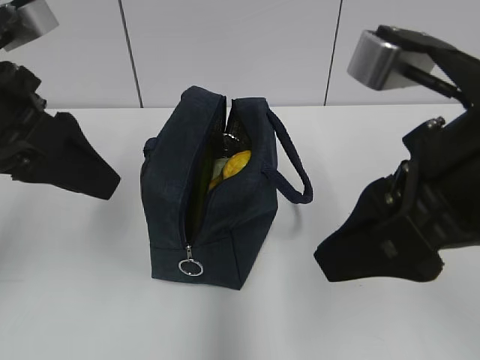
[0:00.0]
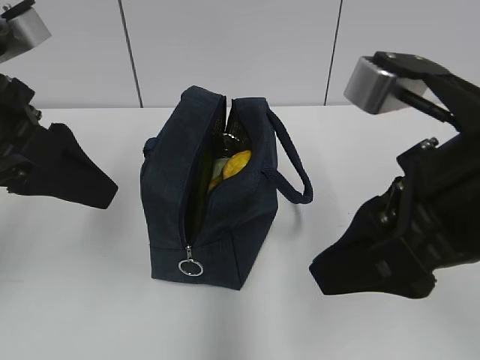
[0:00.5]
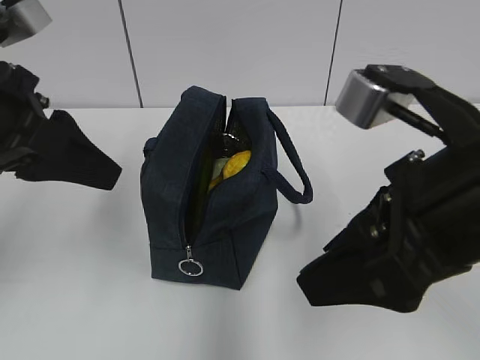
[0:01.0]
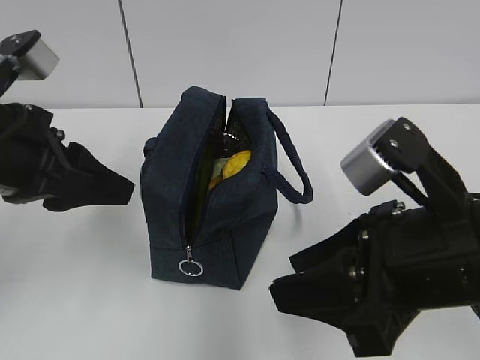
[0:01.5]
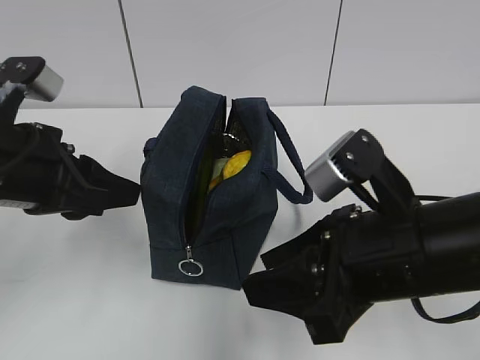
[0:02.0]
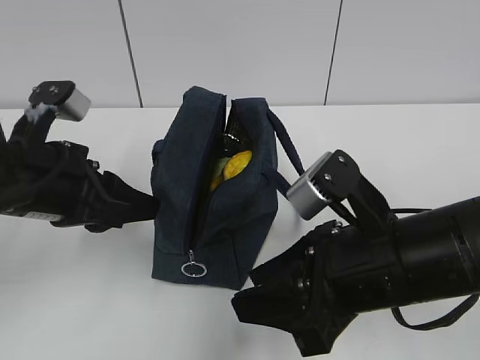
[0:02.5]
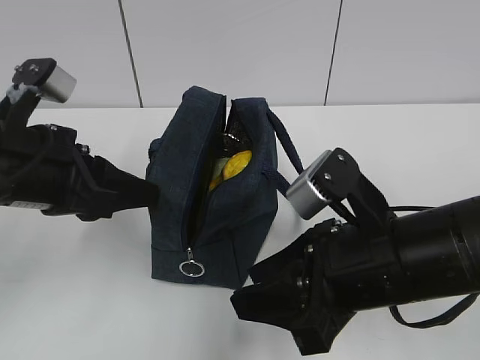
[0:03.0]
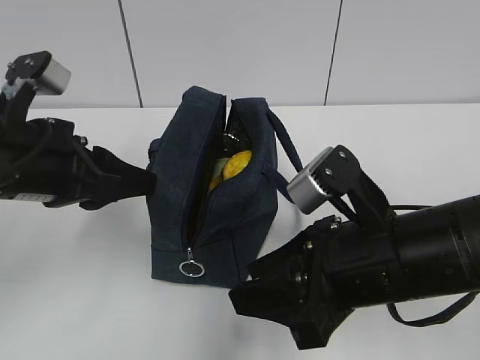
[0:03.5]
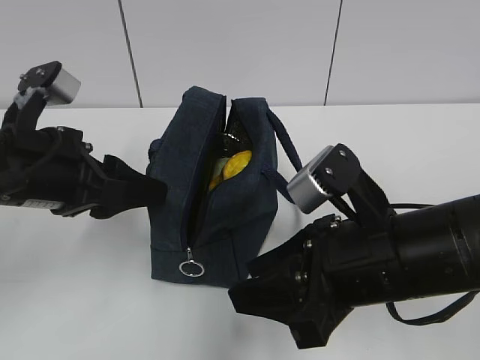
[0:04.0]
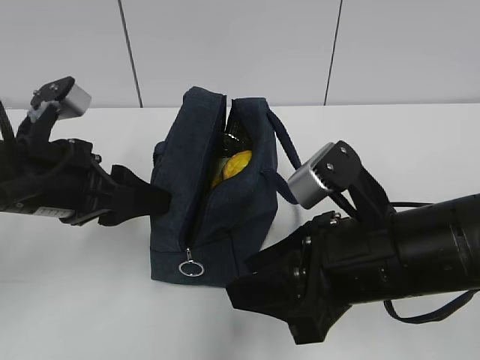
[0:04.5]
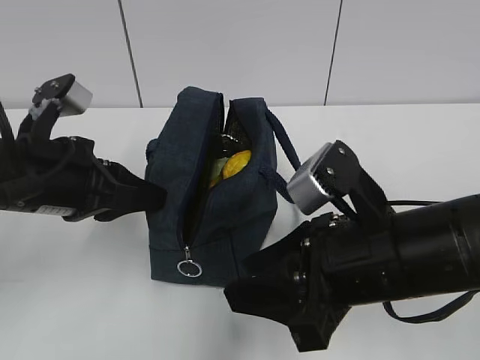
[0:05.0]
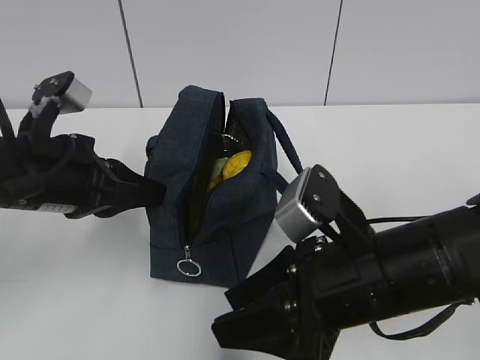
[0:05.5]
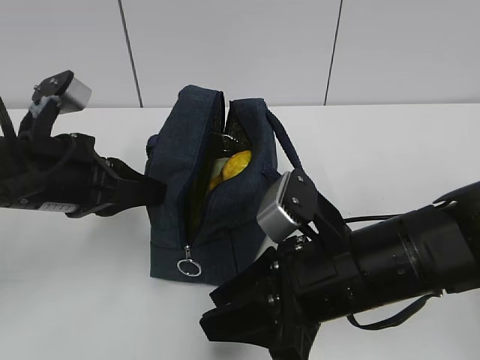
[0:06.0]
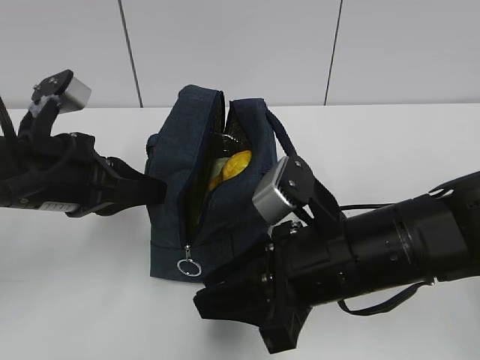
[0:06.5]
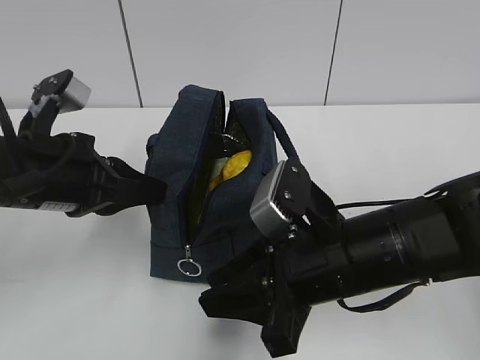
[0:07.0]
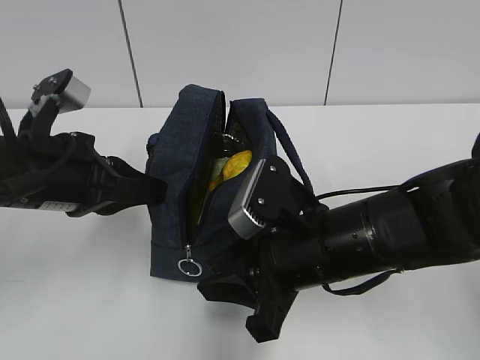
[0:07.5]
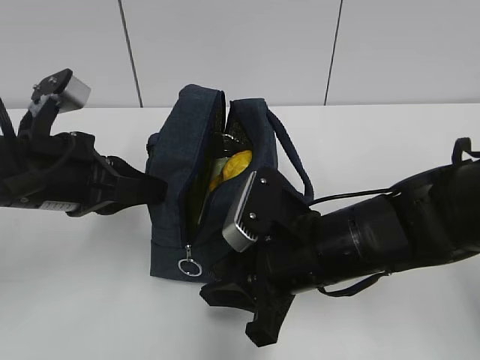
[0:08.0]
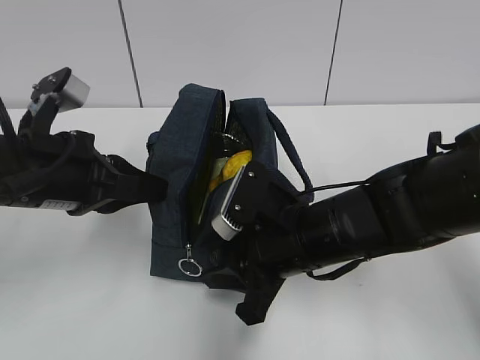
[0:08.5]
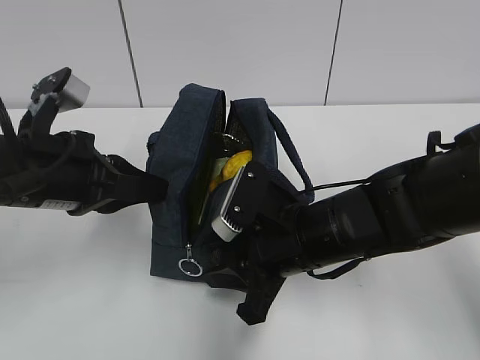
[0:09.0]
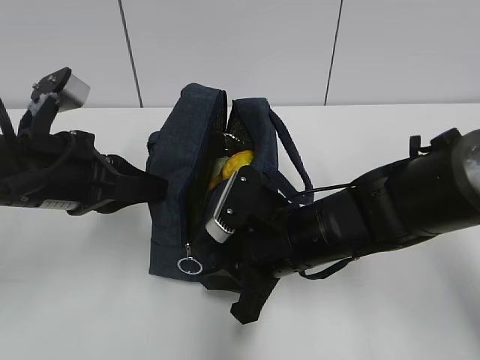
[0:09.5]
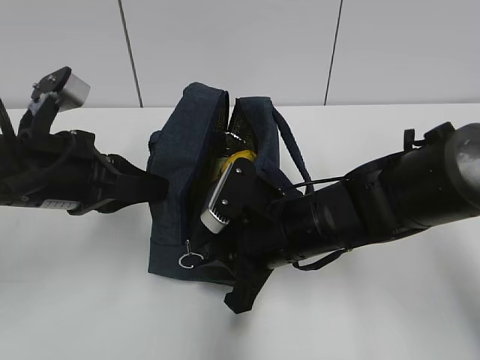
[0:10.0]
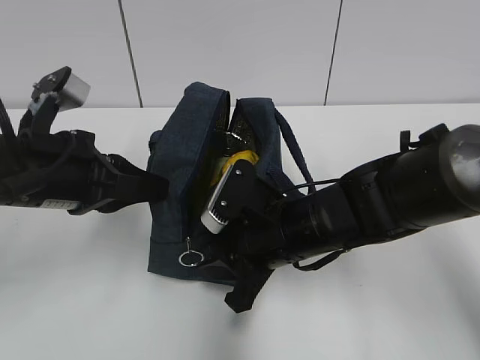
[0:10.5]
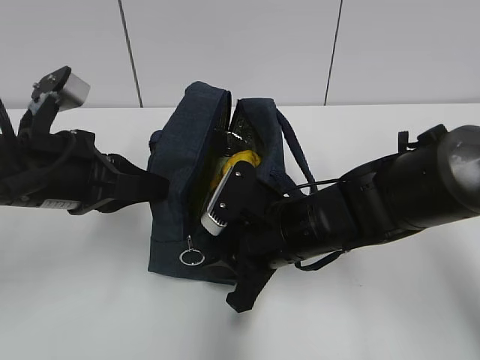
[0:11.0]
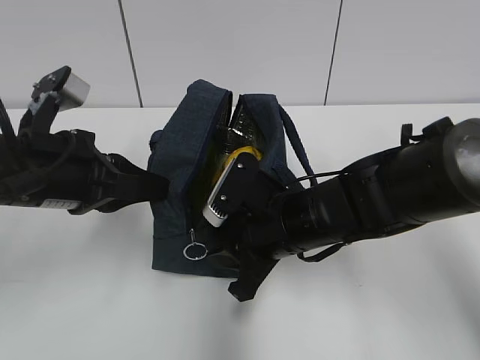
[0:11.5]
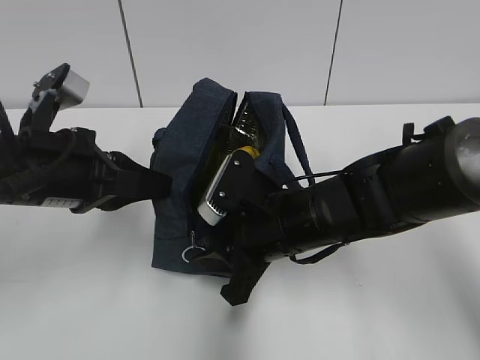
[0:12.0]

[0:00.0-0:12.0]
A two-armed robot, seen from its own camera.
0:00.0 to 0:02.0: The two grippers go about 10 cm downward.
0:02.0 to 0:04.0: The grippers stay close to where they were, moving slightly.
0:04.0 to 0:06.0: The left gripper closes its fingers.
0:06.0 to 0:08.0: The grippers make only small movements.
0:08.0 to 0:12.0: The grippers make only small movements.

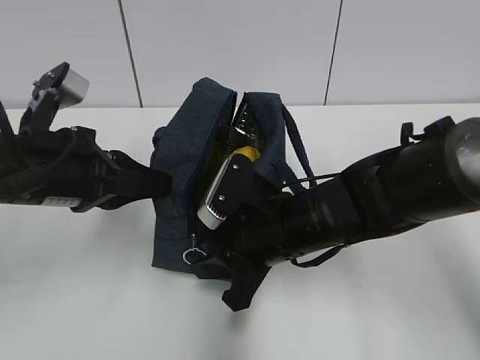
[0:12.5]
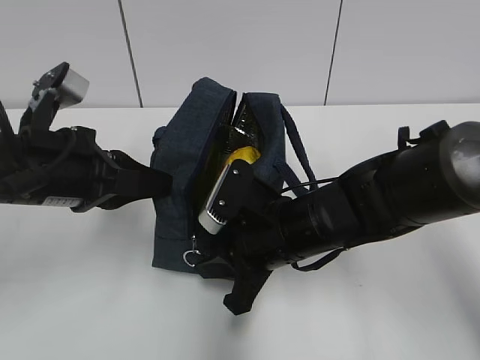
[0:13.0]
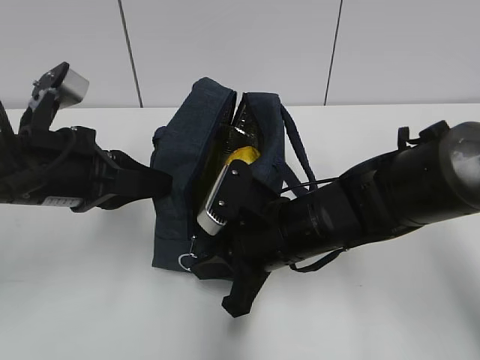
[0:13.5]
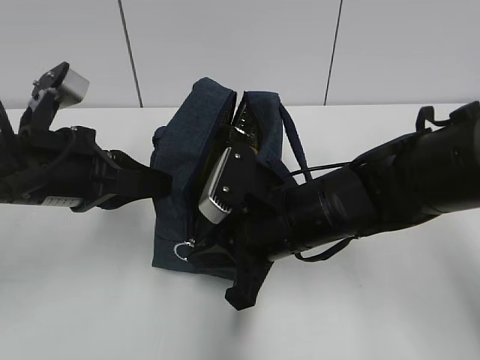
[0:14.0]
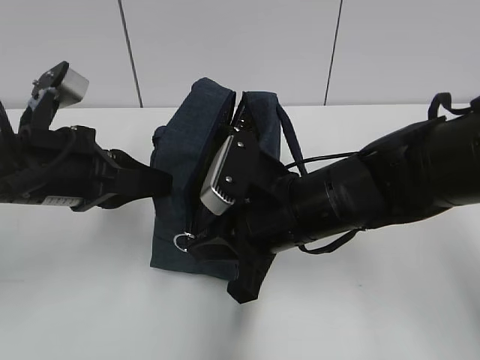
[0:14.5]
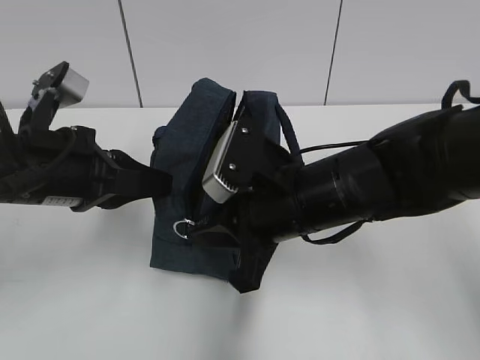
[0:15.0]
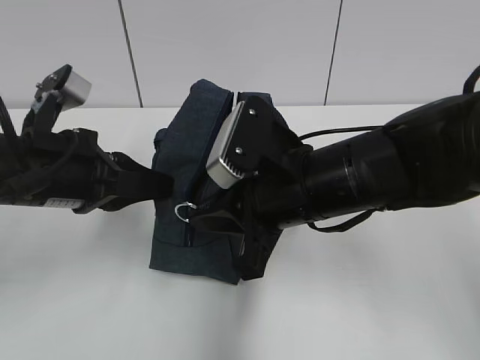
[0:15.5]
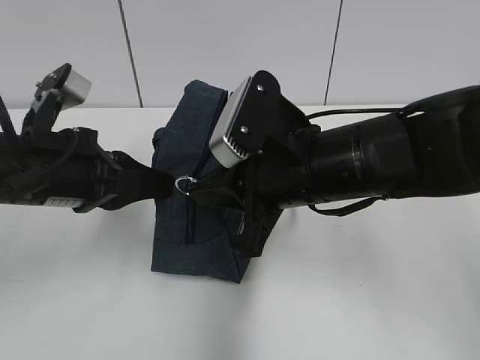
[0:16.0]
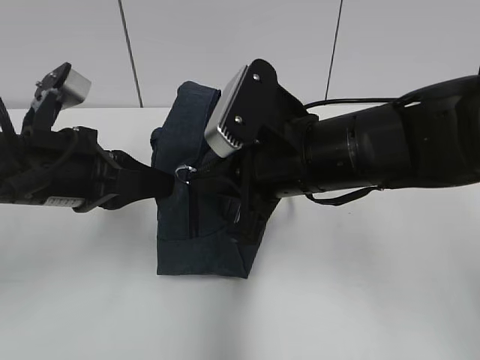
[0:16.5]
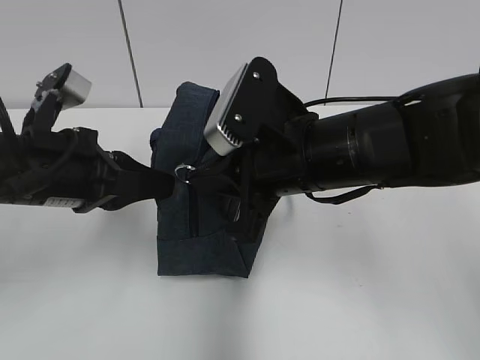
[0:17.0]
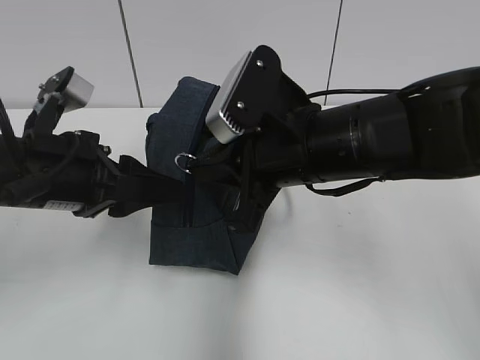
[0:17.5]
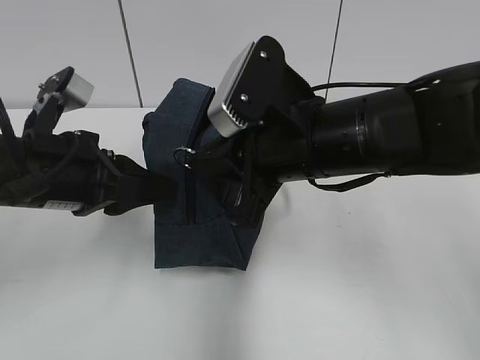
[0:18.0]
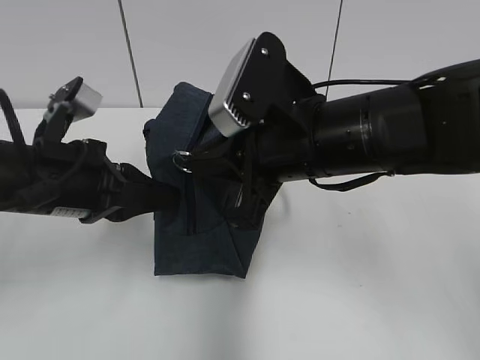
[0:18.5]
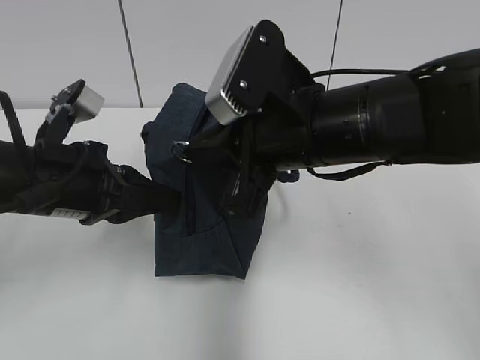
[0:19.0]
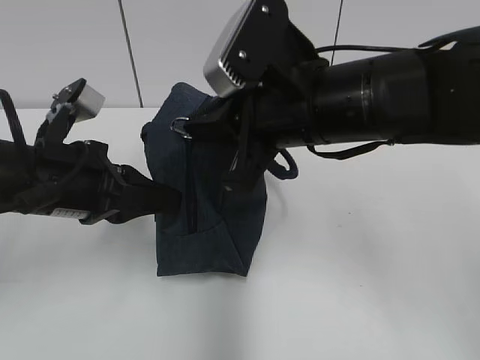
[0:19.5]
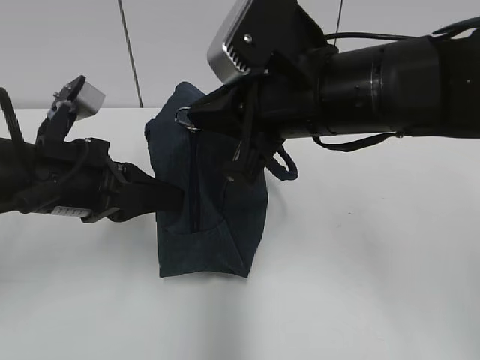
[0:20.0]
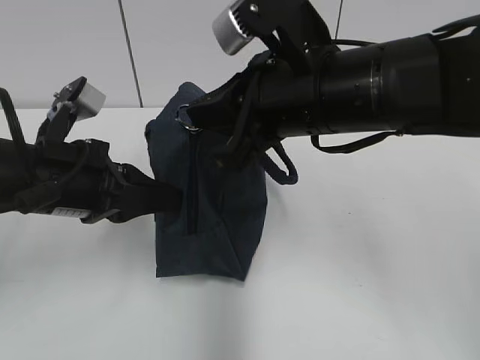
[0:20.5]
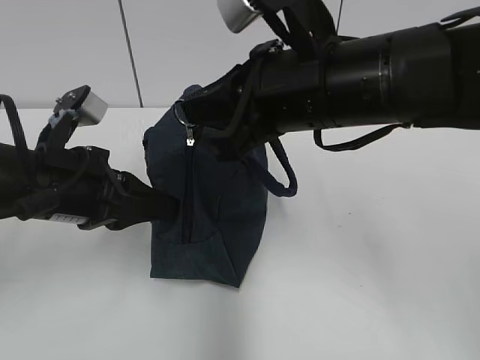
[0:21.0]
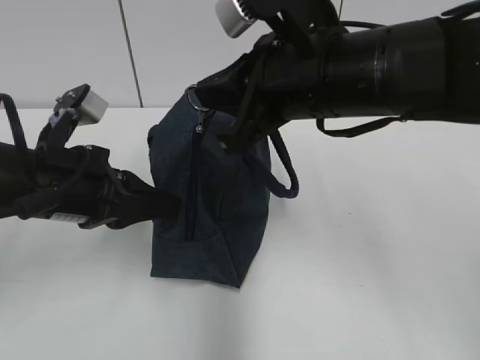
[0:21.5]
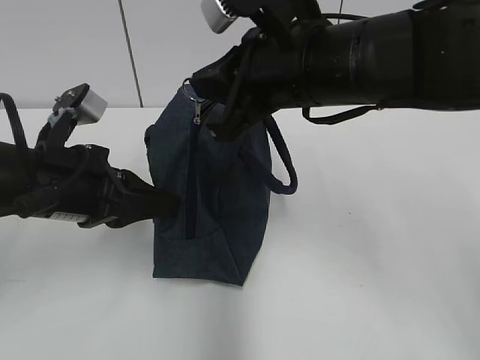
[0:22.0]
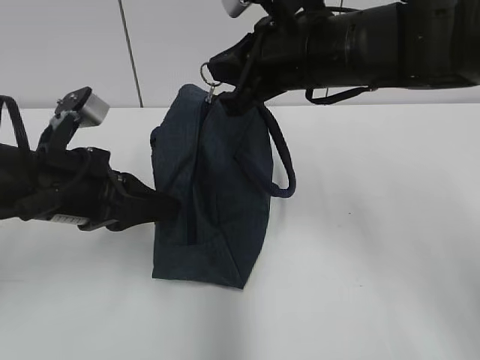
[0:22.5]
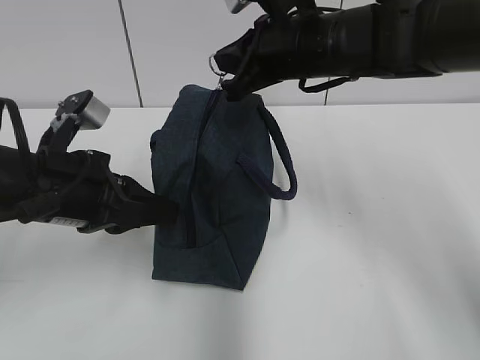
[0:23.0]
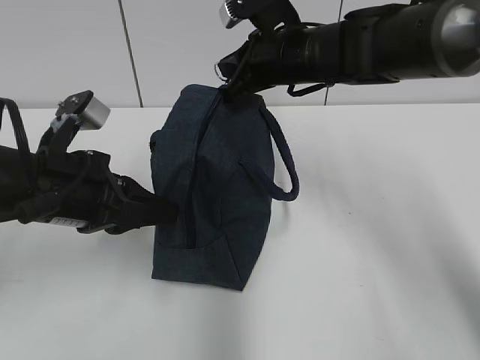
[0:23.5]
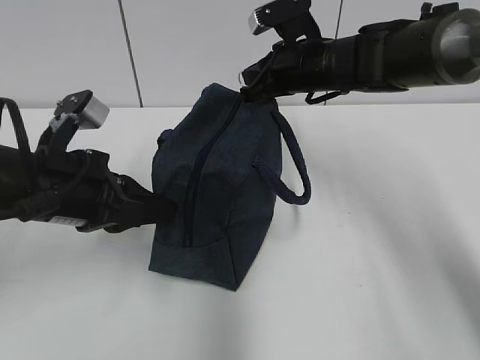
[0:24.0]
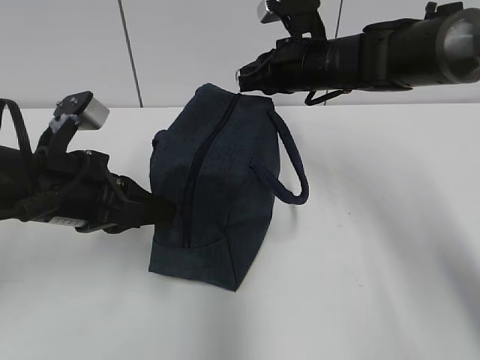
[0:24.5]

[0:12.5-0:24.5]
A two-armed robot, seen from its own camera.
0:12.5 to 0:14.5: The right gripper closes.
0:14.5 to 0:16.5: The right gripper goes about 5 cm upward.
0:16.5 to 0:18.5: The left gripper opens, then closes once more.
0:18.5 to 0:20.5: The grippers make only small movements.
0:20.5 to 0:22.5: The right gripper moves forward, about 5 cm.
0:22.5 to 0:24.5: The right gripper is displaced forward and downward by approximately 15 cm.

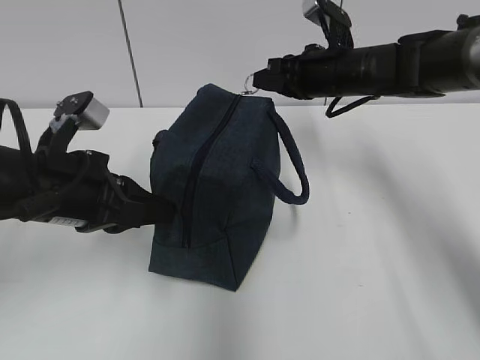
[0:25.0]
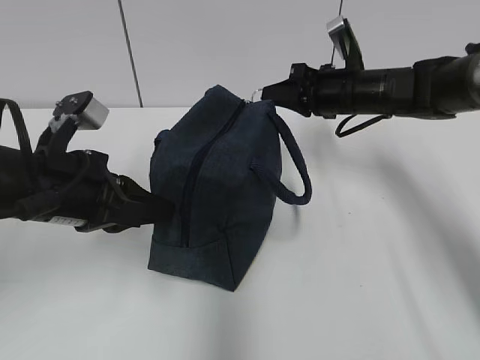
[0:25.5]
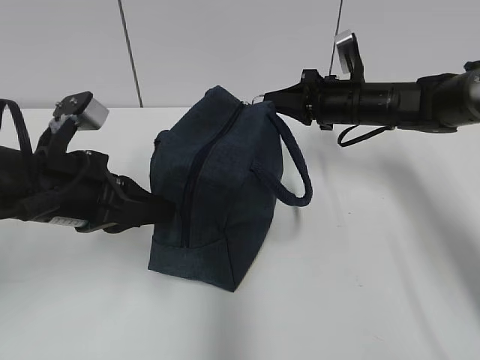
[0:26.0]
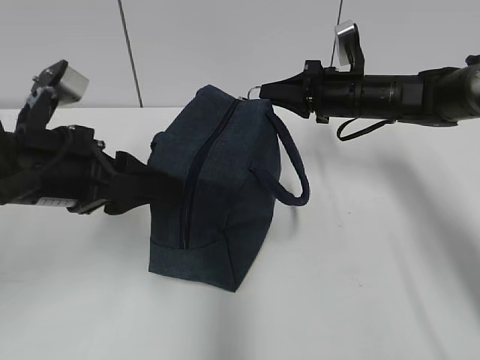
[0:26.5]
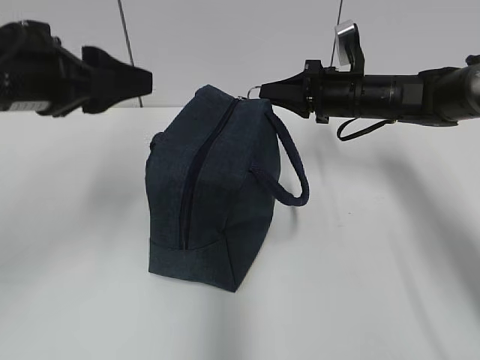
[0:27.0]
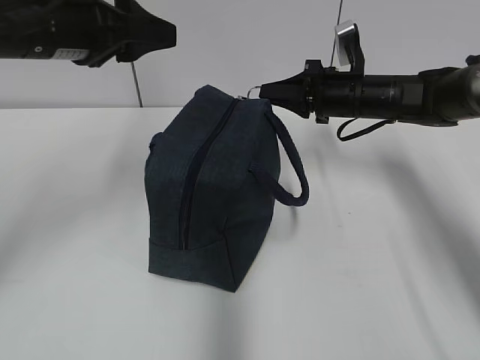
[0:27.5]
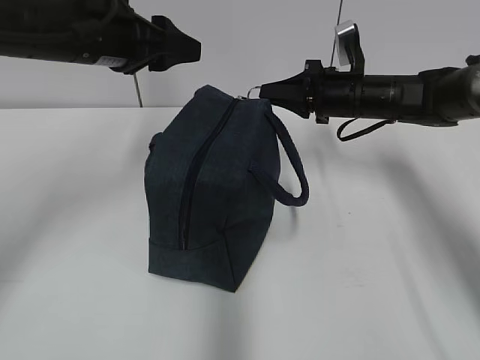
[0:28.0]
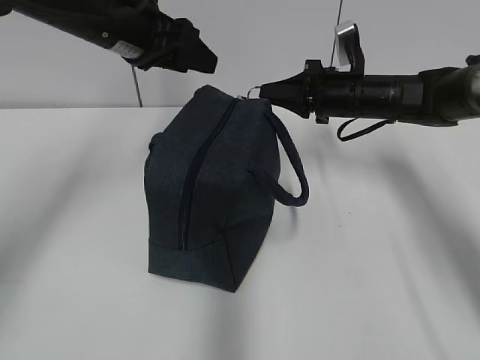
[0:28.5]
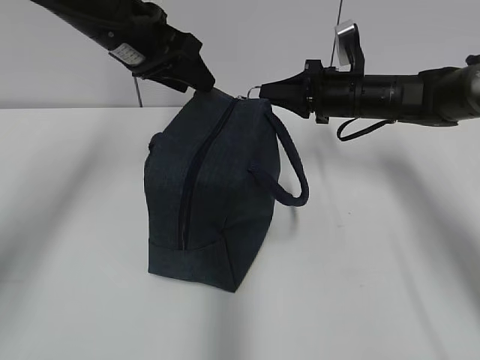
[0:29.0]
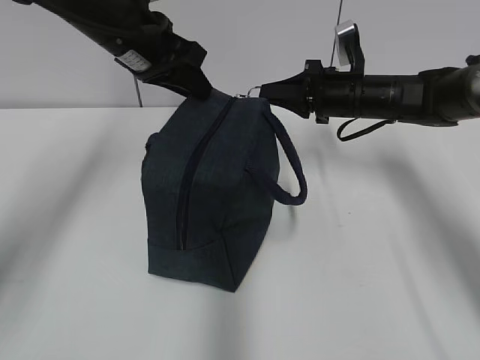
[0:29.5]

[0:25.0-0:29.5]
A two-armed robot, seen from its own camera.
0:25.0 to 0:27.0: The left gripper travels upward by about 10 cm, and opens up.
0:27.0 to 0:29.5: The left gripper goes approximately 15 cm forward, and closes up.
